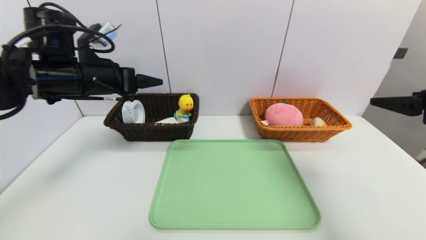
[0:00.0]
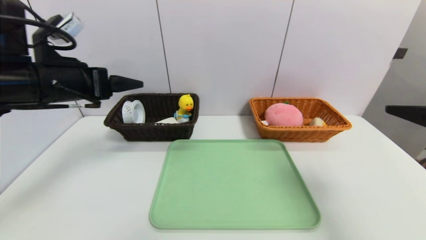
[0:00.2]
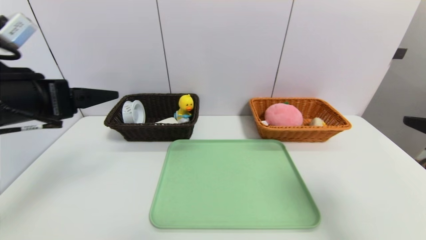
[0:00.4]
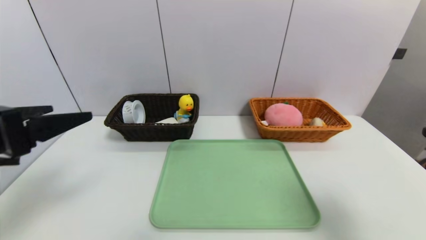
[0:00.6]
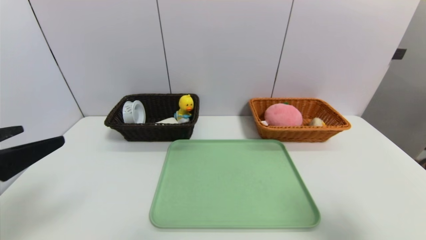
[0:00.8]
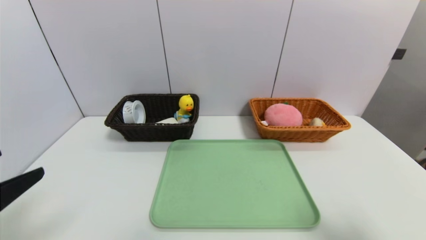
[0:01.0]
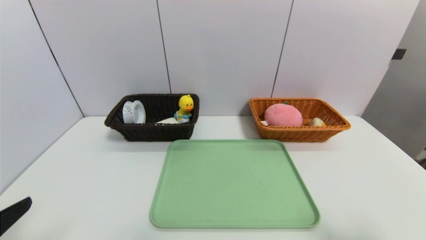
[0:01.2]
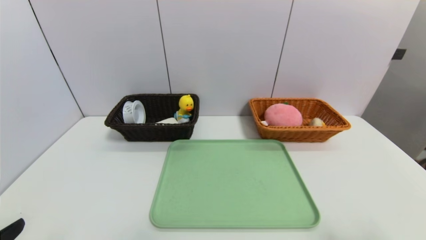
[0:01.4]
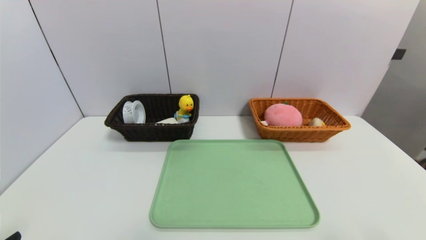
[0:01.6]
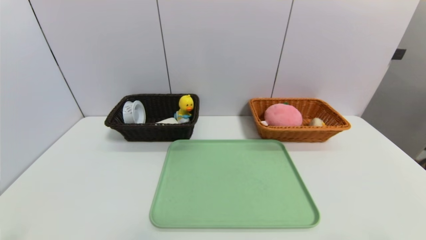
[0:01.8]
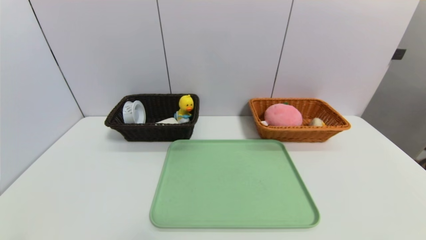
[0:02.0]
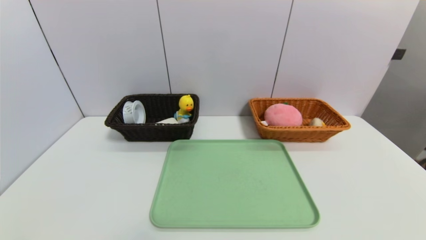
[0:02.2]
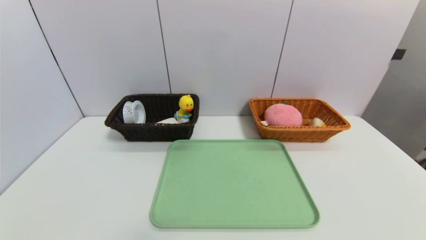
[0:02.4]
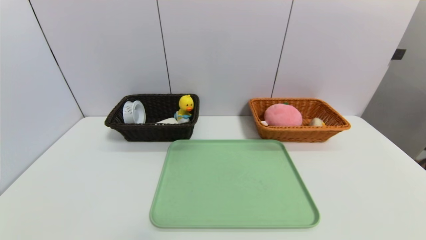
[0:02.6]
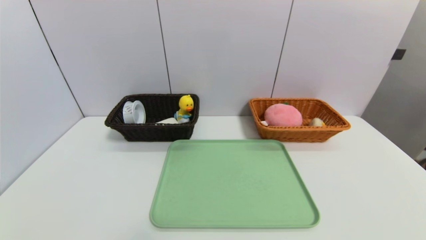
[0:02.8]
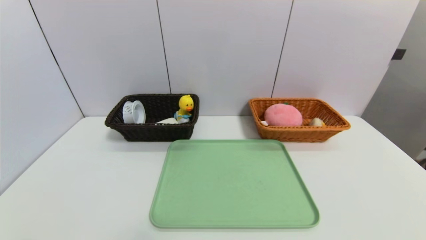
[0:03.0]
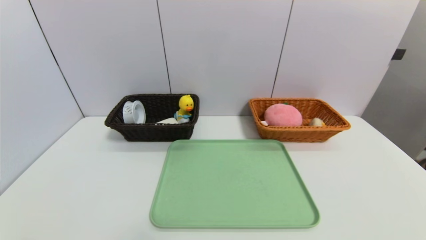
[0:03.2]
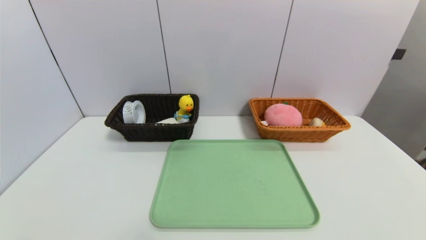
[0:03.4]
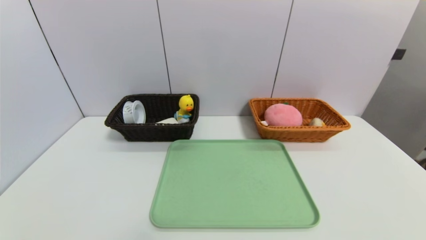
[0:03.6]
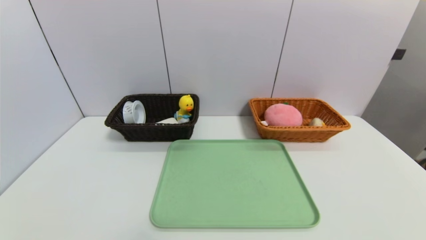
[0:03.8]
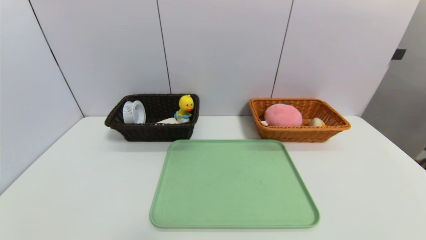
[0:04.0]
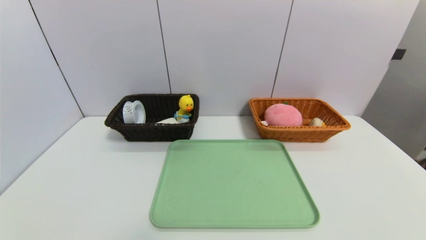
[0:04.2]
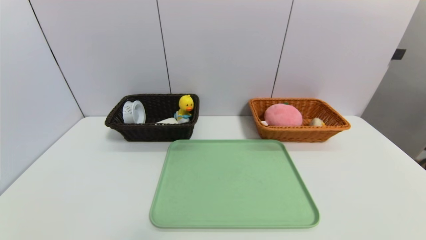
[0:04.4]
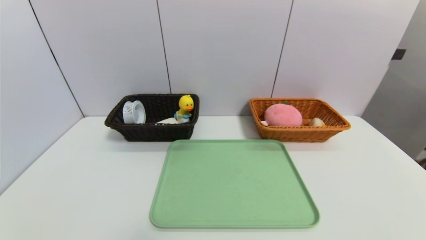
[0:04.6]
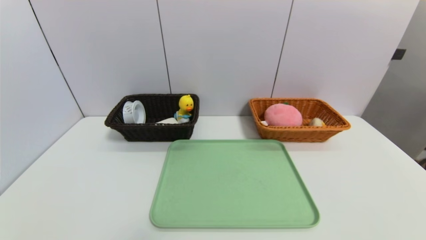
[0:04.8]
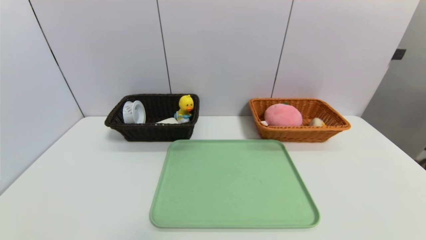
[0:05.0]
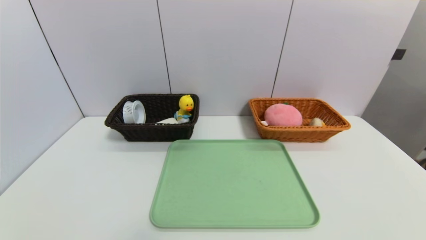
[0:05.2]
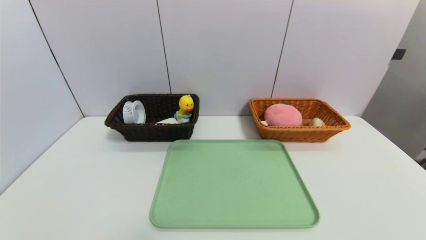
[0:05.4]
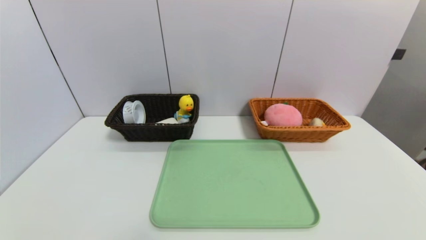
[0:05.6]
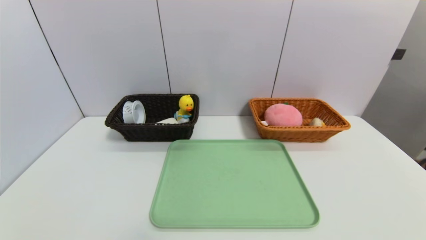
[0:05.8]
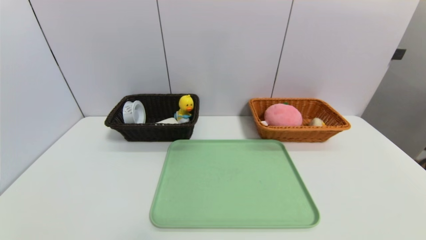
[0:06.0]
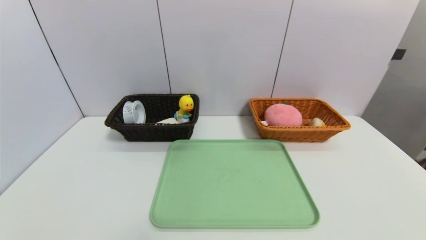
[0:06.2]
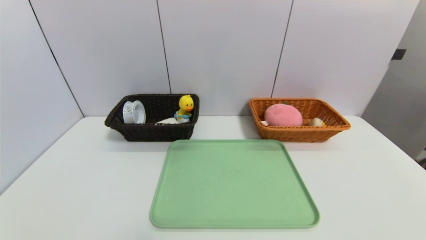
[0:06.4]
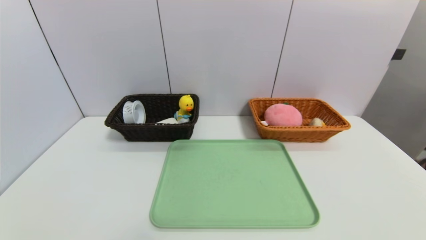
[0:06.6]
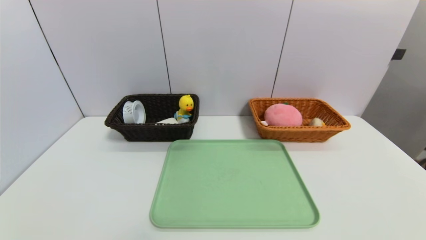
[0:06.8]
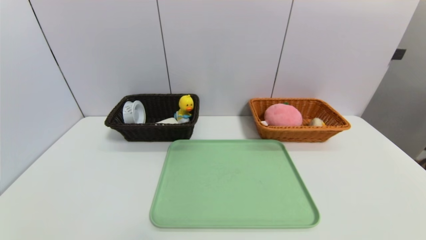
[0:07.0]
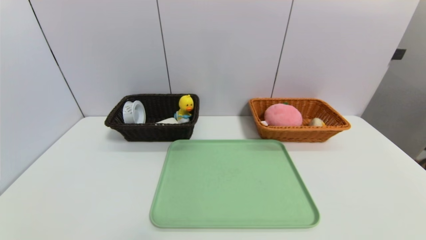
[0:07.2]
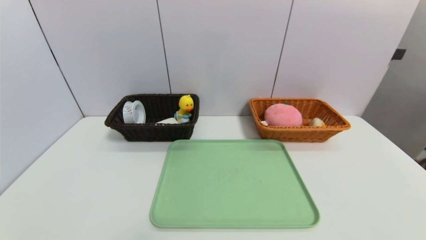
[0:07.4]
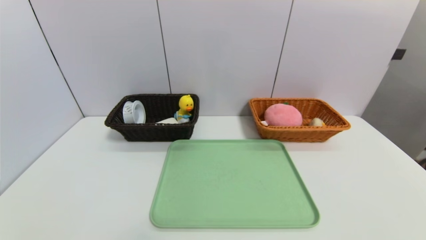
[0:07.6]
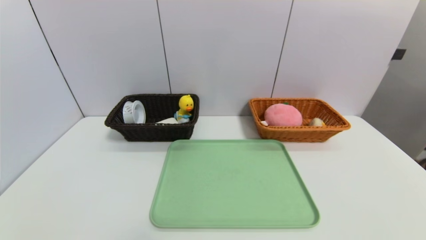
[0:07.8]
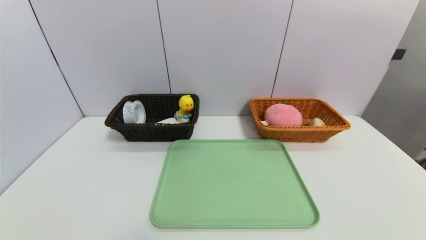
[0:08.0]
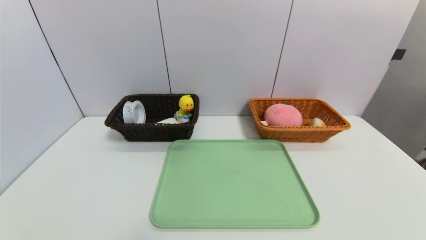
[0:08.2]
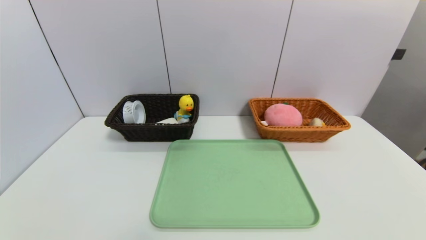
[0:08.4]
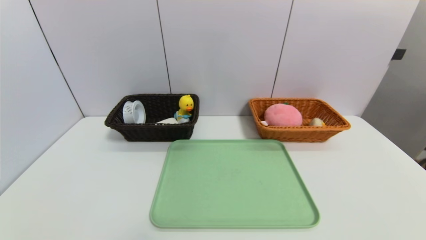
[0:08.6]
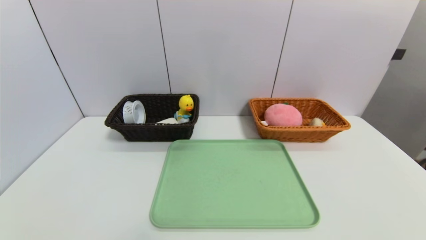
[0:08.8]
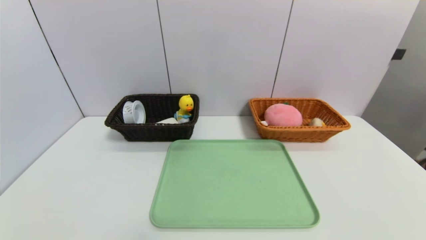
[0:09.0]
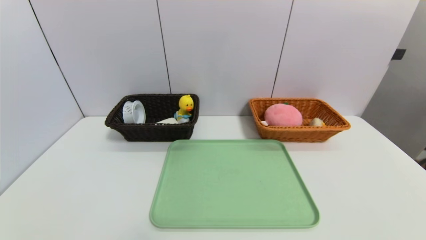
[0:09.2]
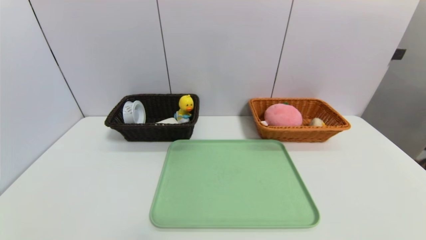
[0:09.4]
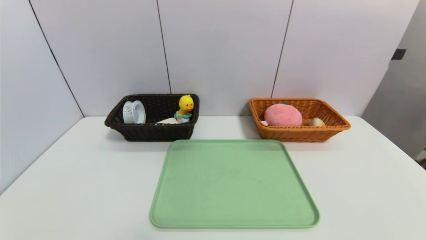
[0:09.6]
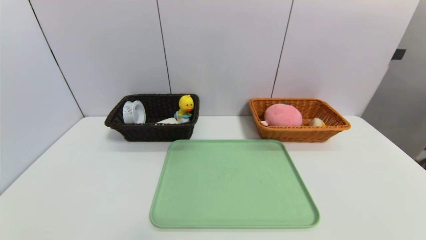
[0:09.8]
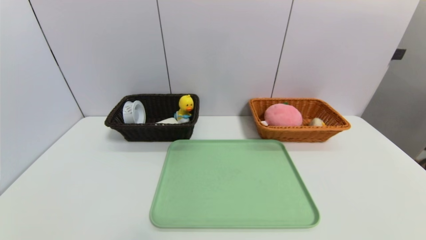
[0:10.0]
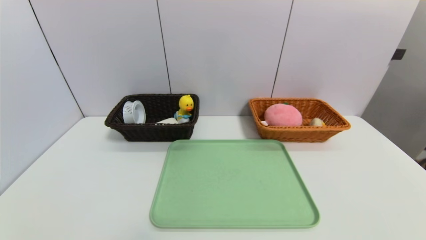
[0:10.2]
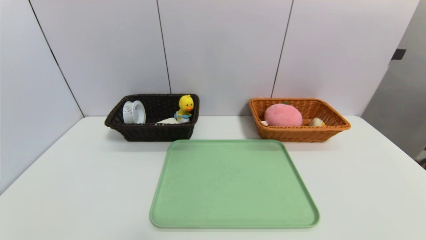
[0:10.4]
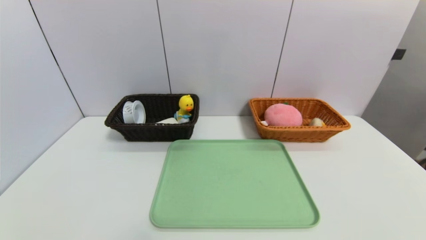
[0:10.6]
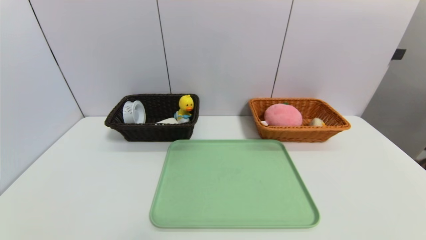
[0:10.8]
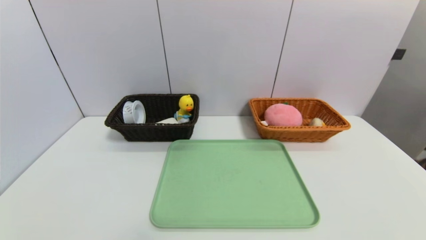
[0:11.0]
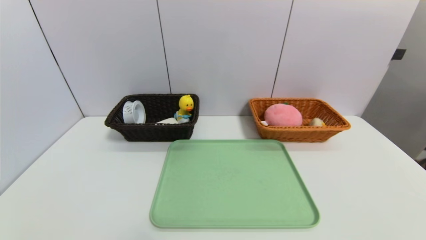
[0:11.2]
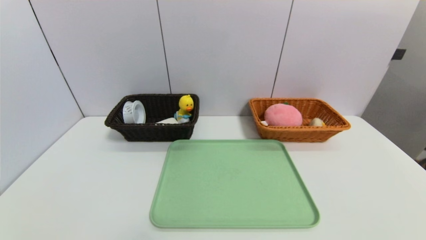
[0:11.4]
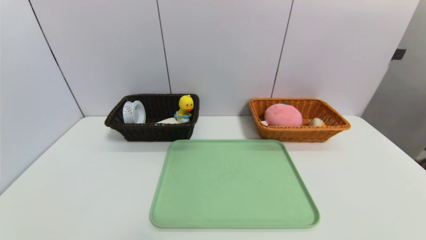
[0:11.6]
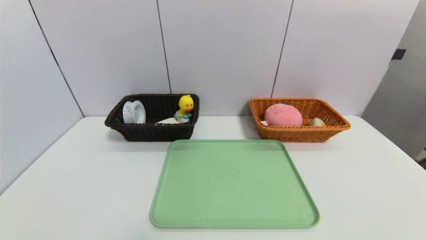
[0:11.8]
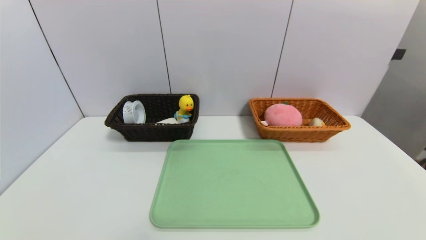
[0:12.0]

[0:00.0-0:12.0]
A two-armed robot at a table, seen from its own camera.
Task of the whole recording: place the food in the right basket with the right gripper, and place the non food items in the left basket with the left gripper.
0:00.0 to 0:01.6: The left gripper heads backward, covering roughly 30 cm; the right gripper goes some 20 cm backward and downward.
0:06.0 to 0:12.0: Neither gripper changes place.

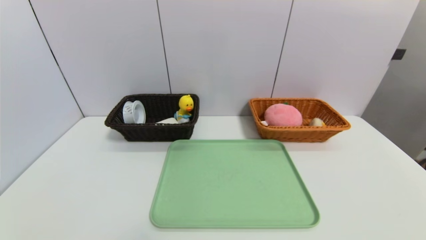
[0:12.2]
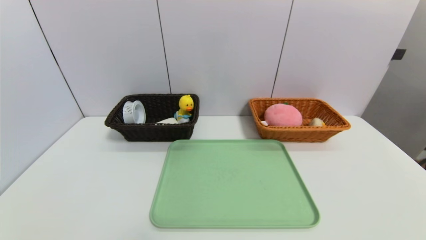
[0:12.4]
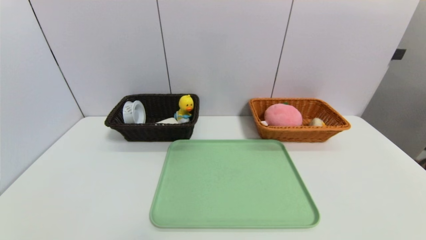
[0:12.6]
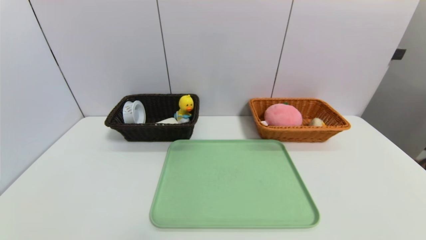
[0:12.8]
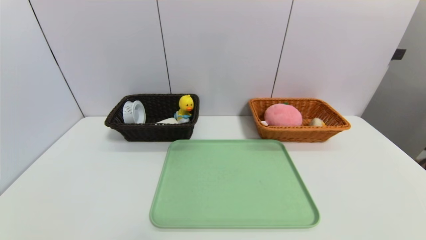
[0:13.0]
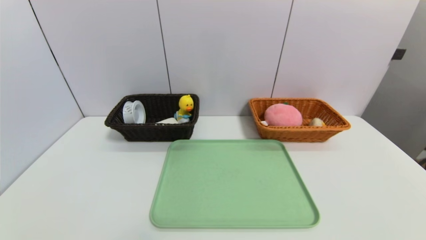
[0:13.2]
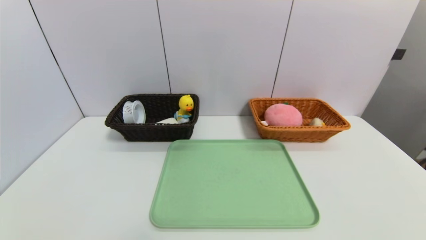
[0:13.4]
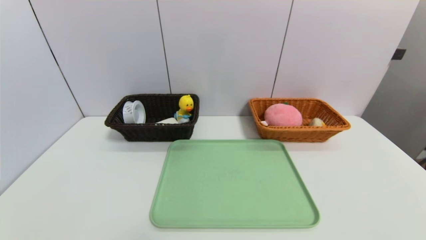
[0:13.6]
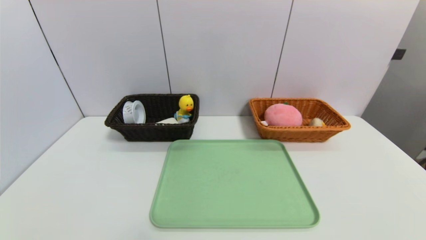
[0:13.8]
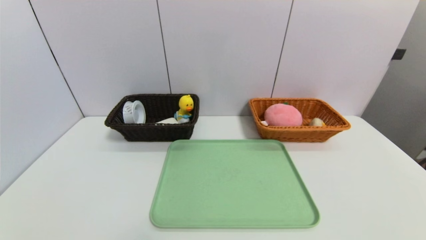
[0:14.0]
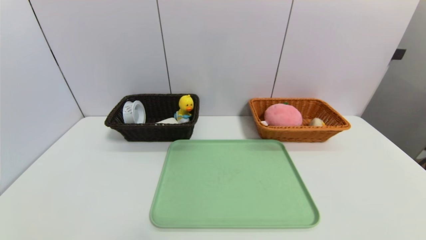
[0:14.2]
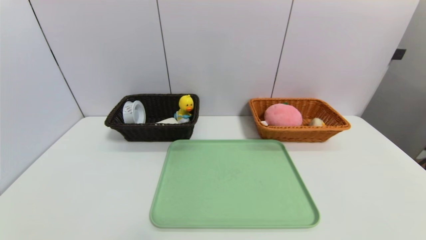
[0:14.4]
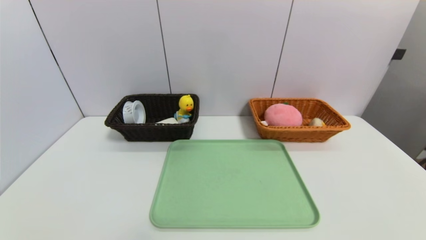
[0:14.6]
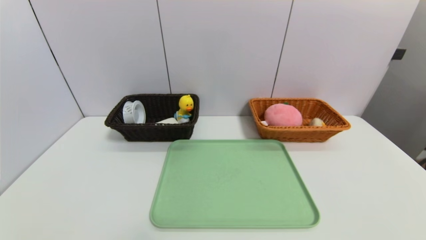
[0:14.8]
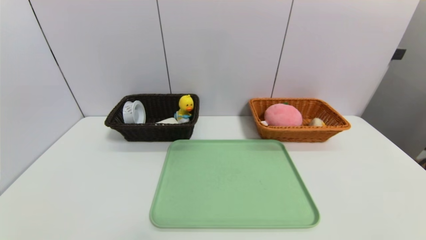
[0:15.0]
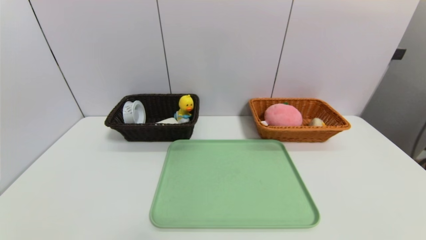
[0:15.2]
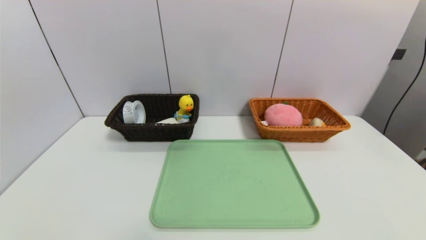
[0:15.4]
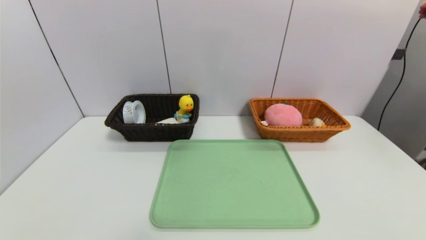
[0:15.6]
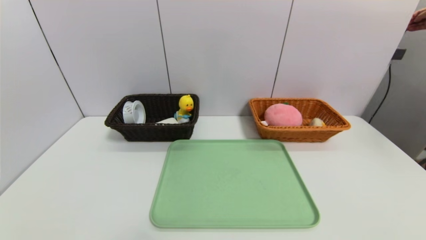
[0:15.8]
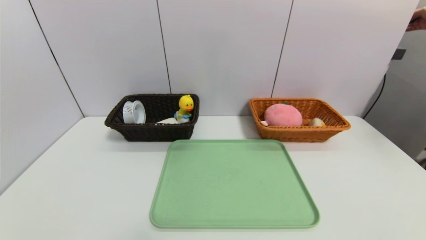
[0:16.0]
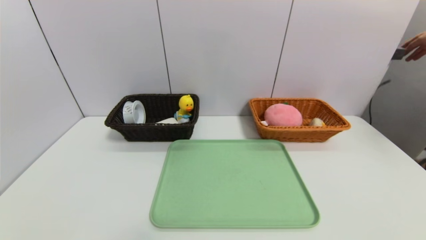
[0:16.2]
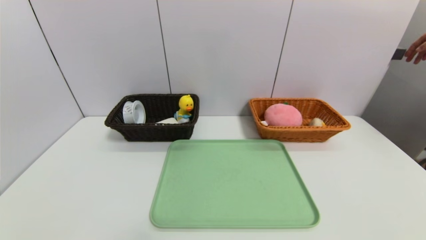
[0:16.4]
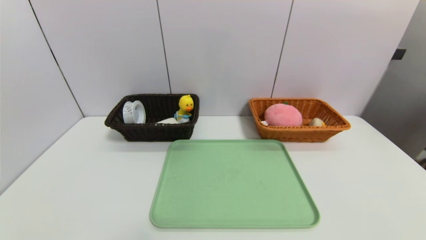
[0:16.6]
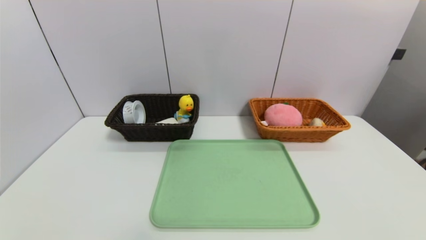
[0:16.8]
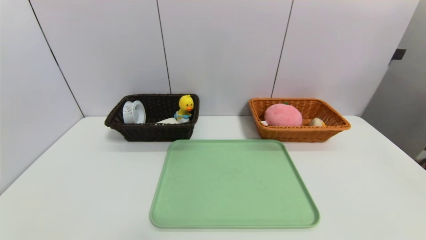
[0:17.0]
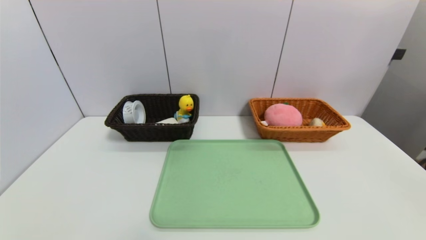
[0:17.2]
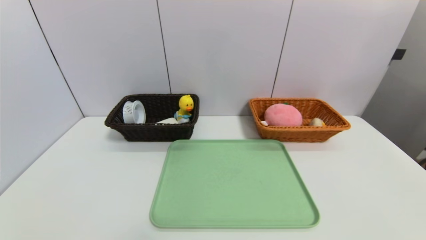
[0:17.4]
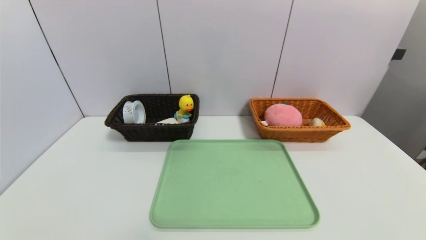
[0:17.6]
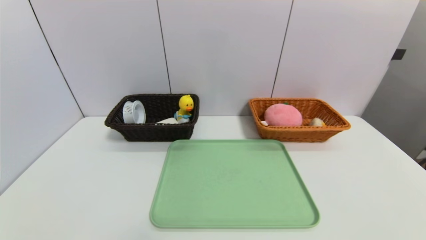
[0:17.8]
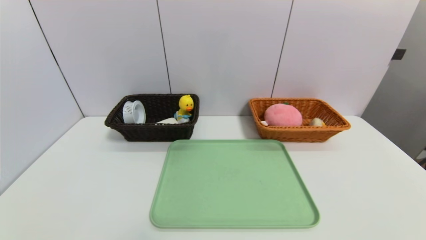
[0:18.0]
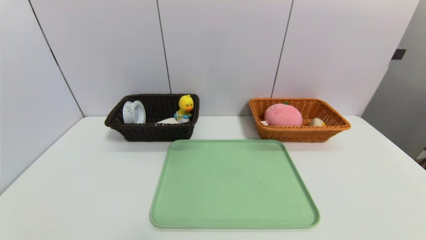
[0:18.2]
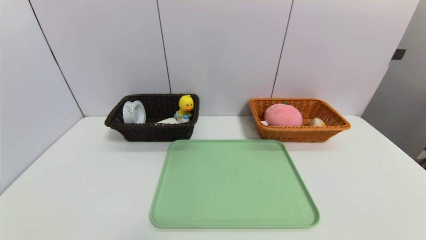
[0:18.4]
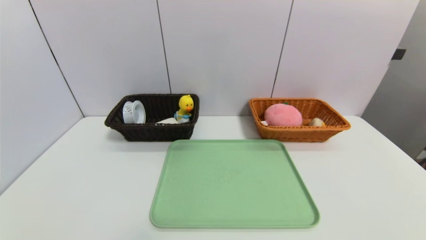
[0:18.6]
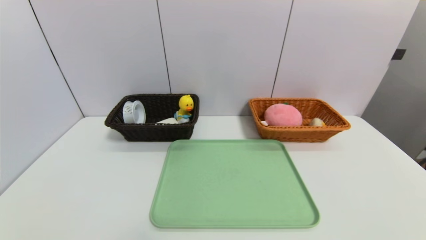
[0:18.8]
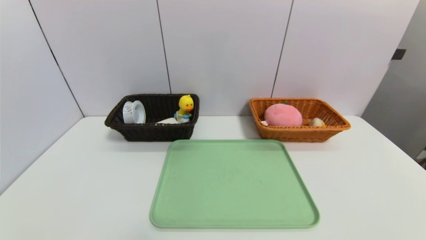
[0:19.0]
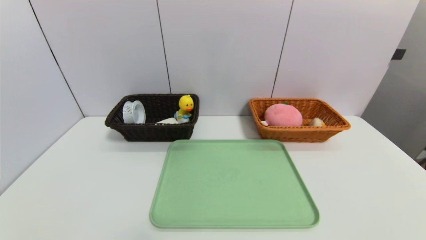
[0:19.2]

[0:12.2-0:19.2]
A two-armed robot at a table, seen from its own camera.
Task of the whole recording: place the food in the right basket with the right gripper, and place the non food items in the left basket with the left gripper.
0:12.2 to 0:19.2: The two grippers keep their place.
